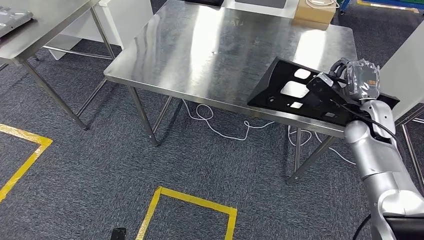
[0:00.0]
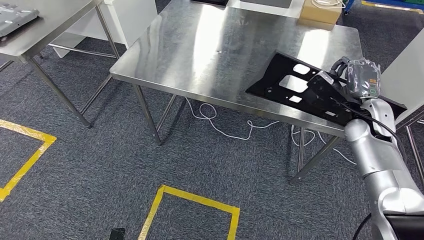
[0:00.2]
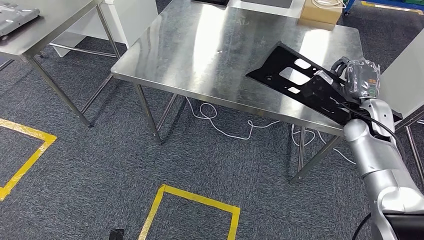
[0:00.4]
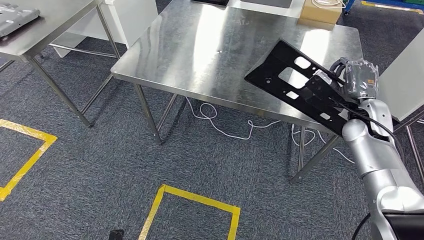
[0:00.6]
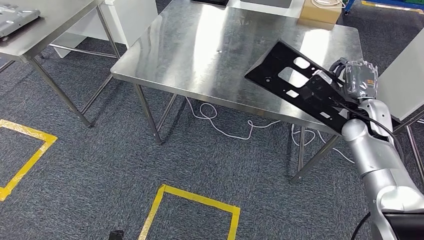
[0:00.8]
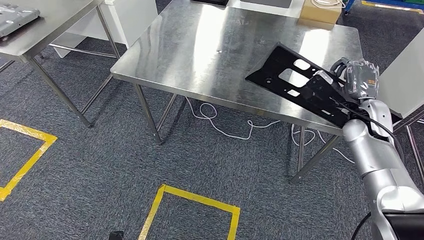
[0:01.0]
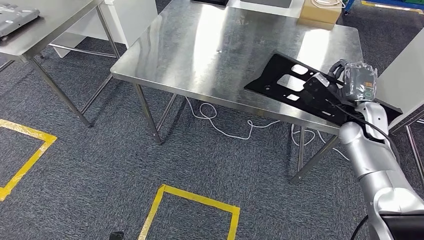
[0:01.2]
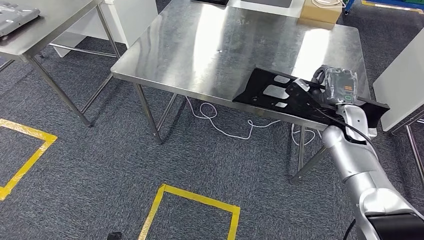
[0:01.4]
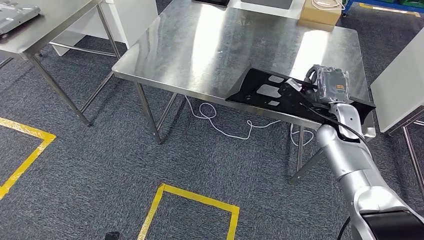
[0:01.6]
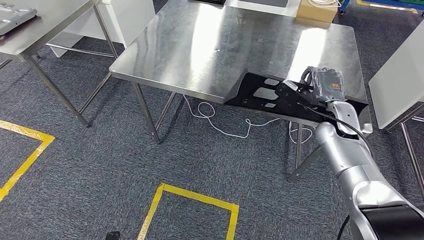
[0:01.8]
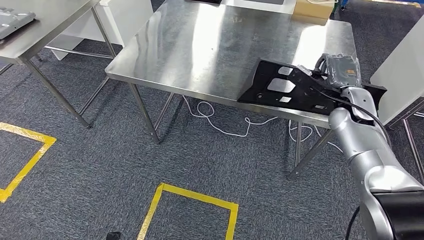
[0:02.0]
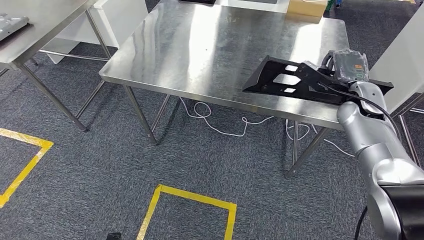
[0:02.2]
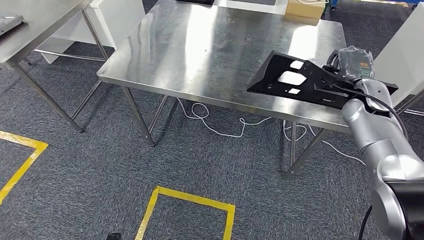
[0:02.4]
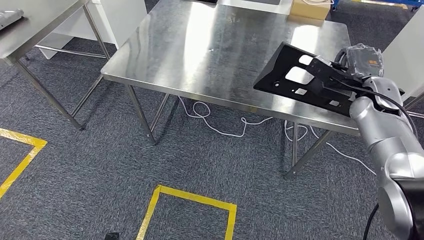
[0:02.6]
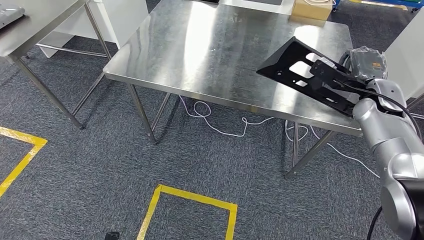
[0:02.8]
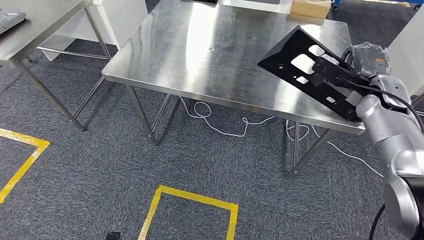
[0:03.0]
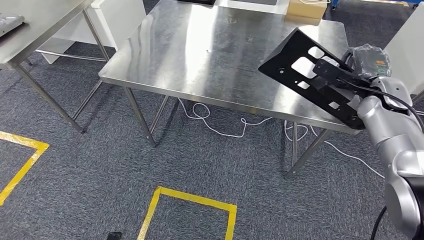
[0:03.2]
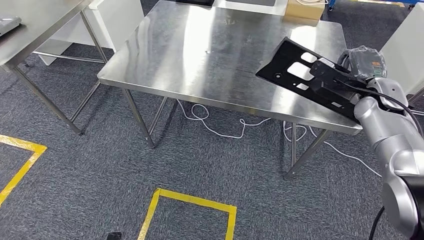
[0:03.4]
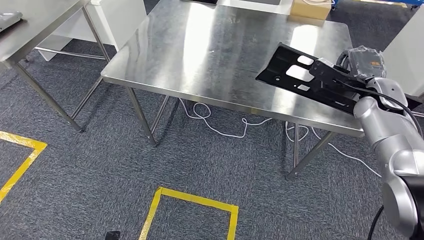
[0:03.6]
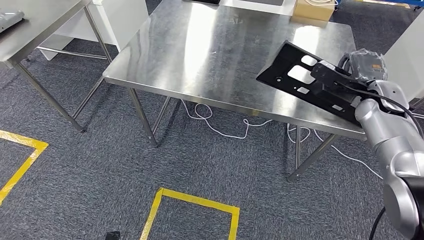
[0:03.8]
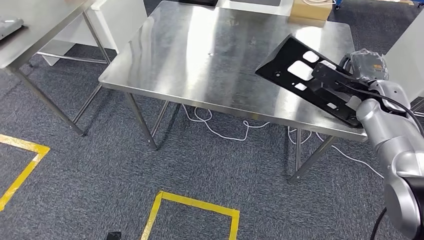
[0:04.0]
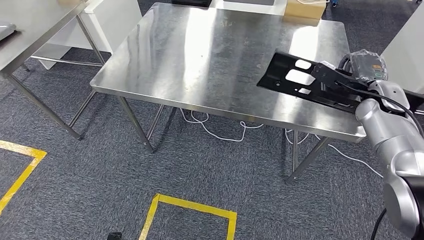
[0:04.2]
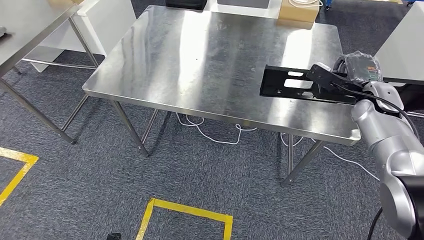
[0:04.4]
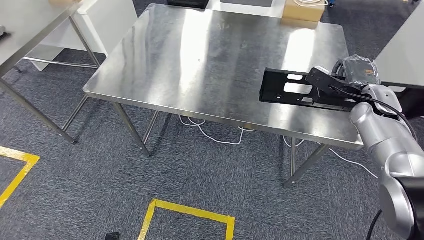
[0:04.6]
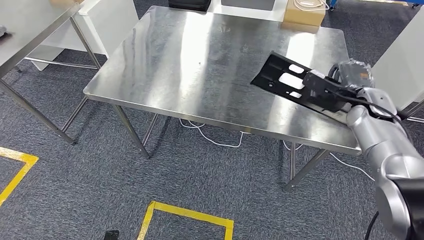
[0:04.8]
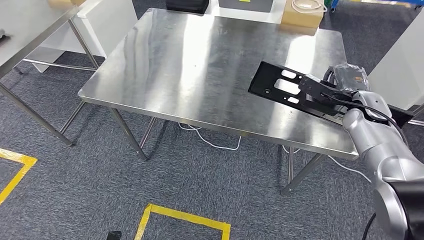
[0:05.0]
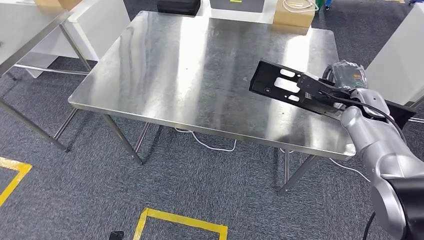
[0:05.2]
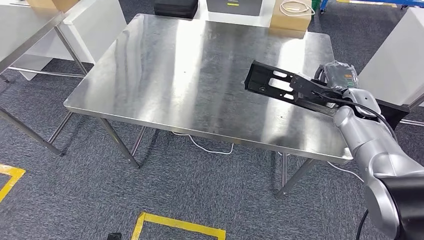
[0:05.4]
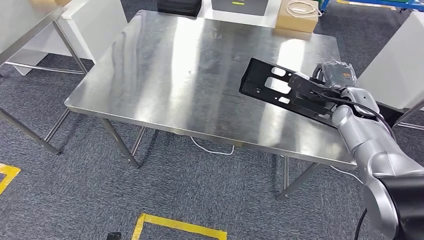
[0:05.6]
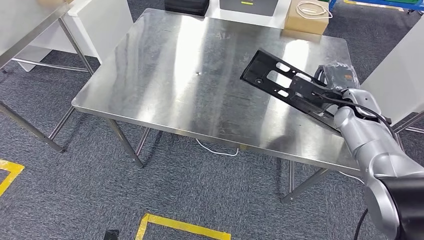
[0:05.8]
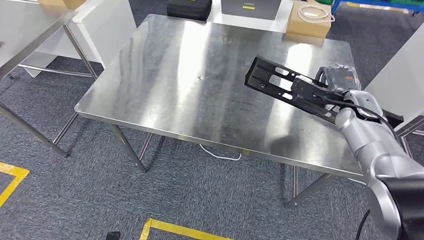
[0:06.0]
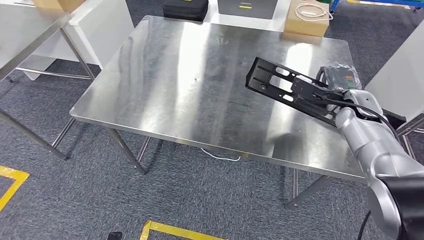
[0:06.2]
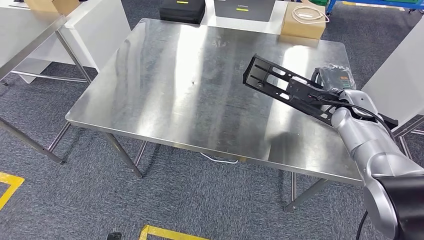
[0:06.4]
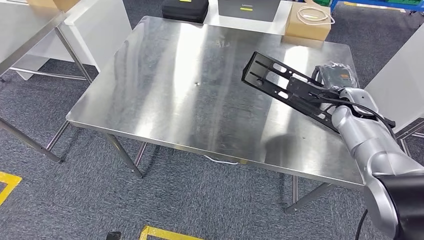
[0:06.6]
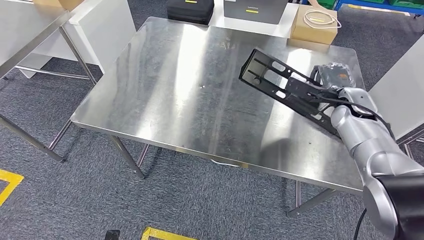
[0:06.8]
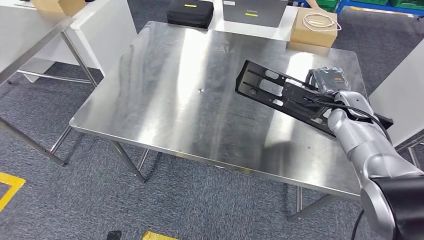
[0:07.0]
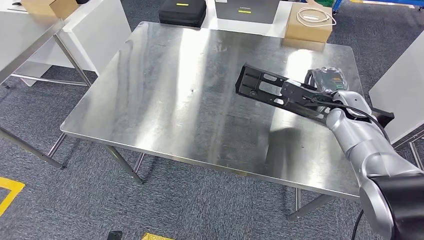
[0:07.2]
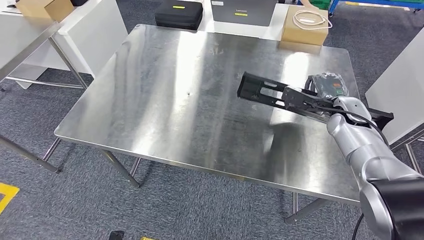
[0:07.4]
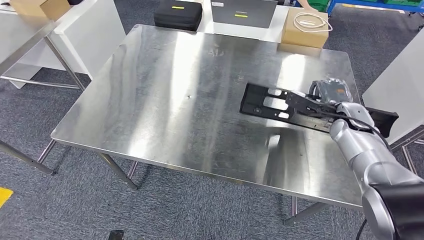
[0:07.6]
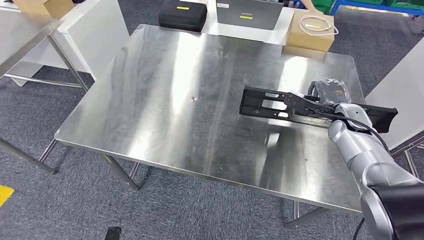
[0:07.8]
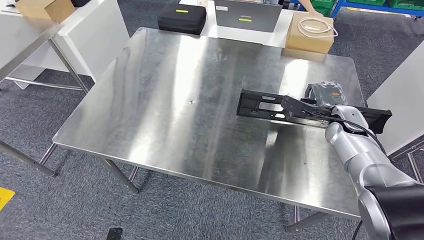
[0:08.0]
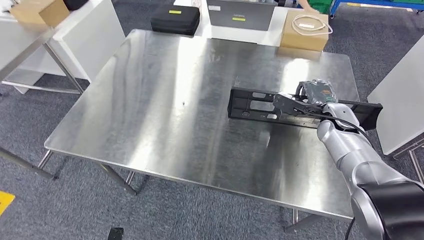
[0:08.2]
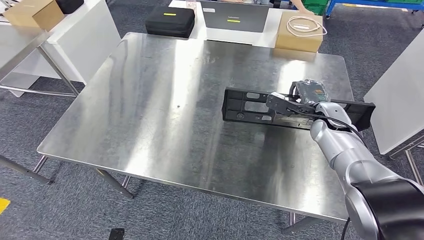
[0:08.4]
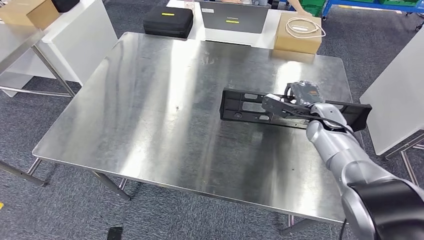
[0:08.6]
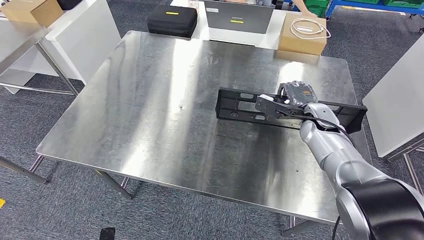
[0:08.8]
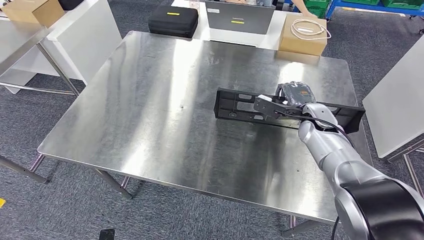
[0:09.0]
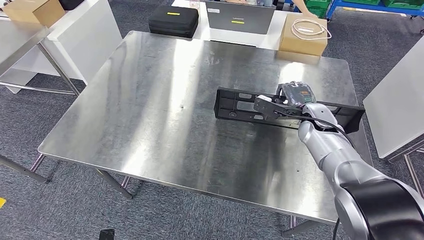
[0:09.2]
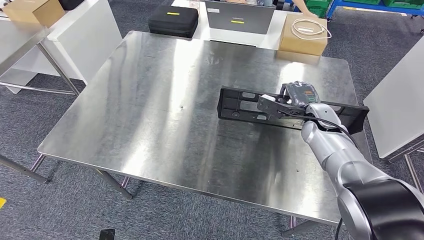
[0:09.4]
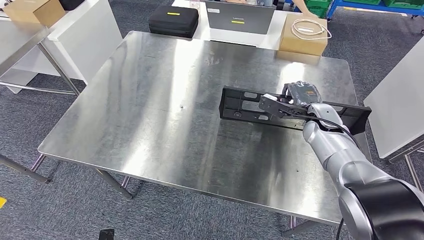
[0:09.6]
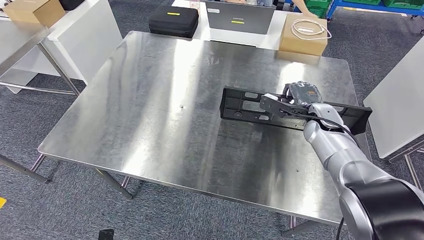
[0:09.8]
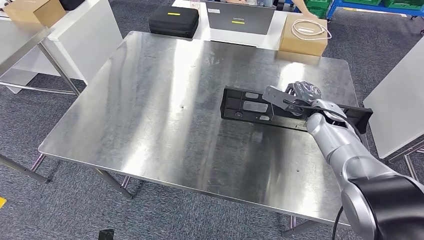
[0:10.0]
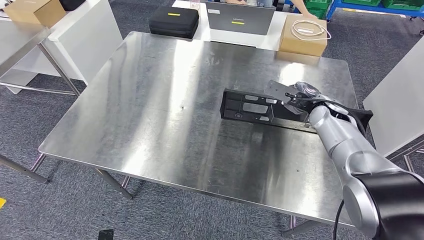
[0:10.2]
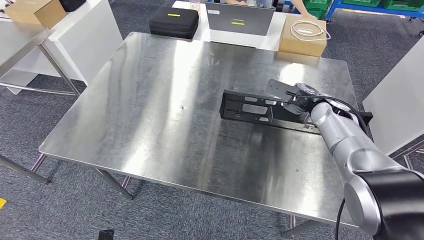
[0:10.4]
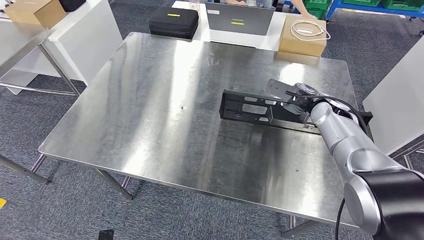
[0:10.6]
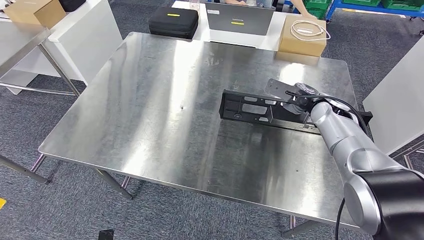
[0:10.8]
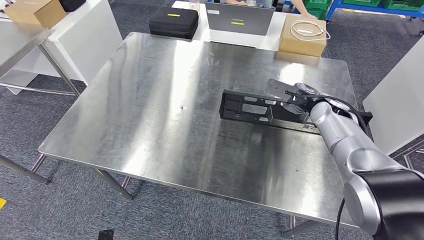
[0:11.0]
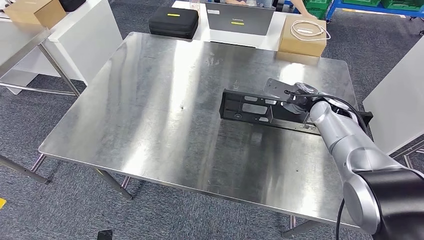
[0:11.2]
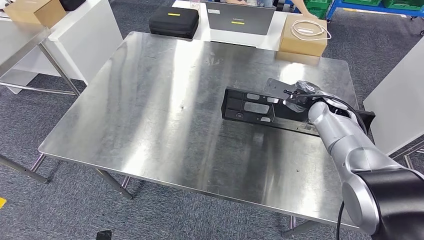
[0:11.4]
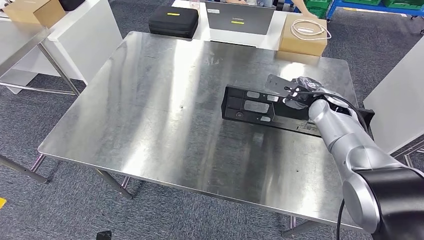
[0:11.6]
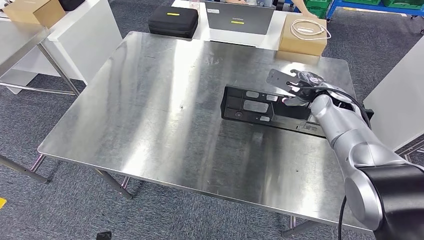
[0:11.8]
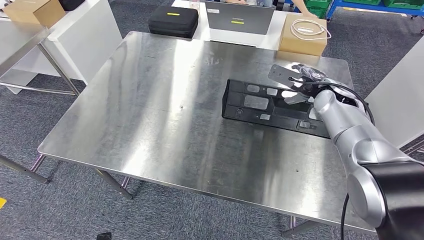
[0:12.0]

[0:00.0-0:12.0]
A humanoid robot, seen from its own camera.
0:10.4 to 0:12.0: The hands move only a little.

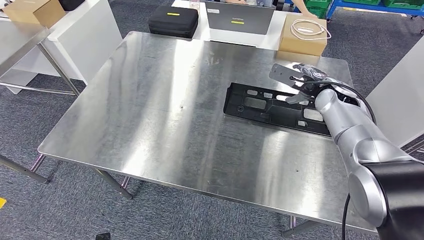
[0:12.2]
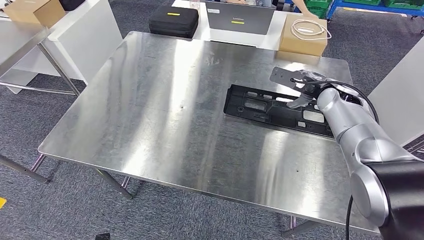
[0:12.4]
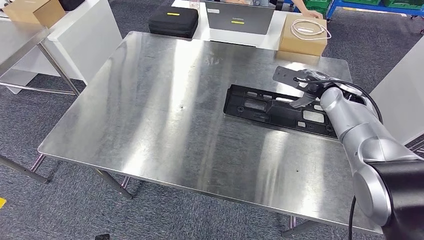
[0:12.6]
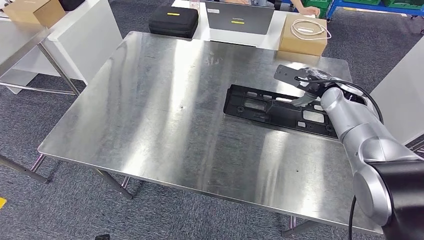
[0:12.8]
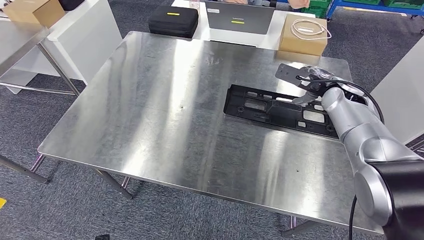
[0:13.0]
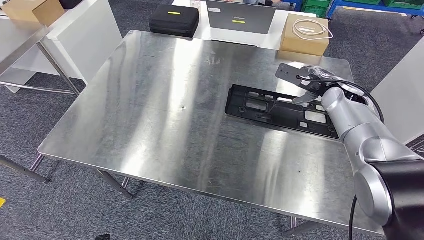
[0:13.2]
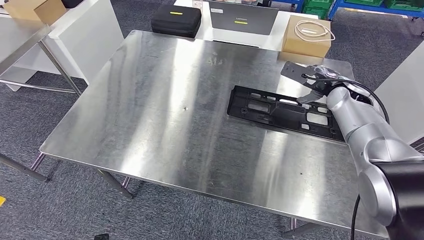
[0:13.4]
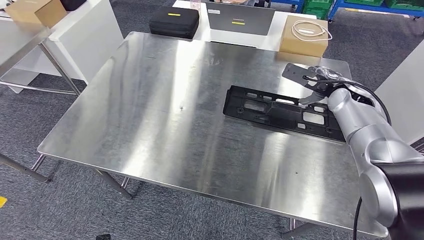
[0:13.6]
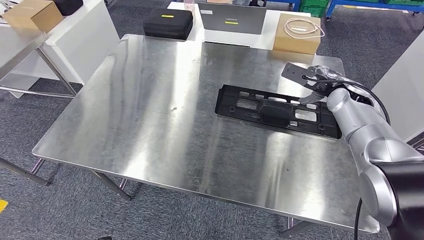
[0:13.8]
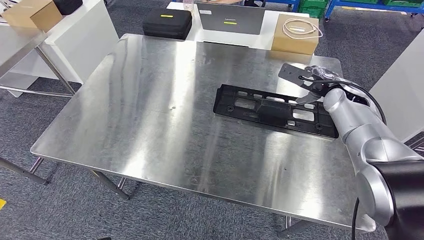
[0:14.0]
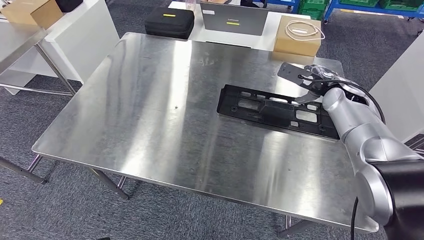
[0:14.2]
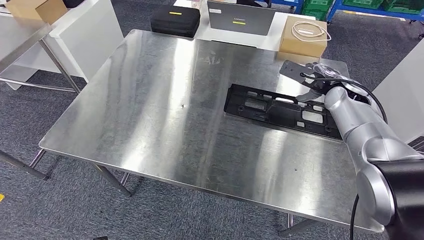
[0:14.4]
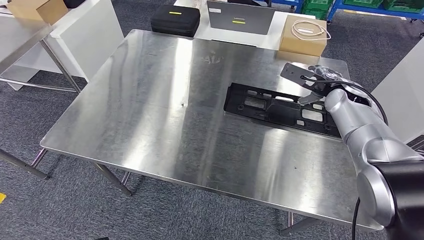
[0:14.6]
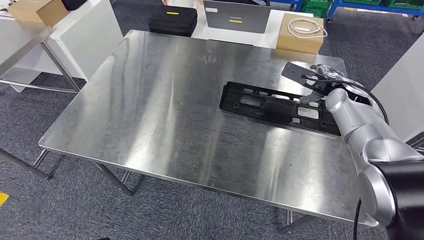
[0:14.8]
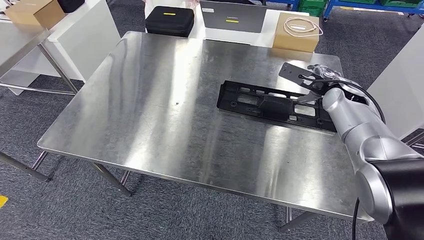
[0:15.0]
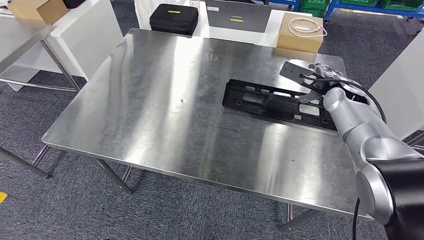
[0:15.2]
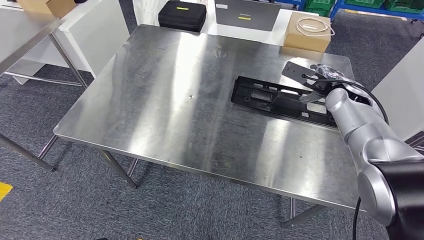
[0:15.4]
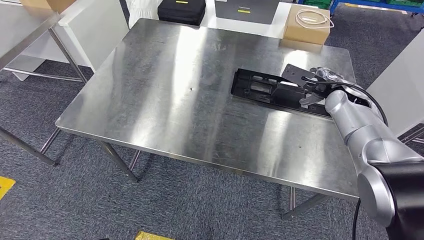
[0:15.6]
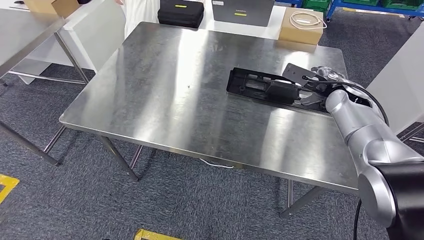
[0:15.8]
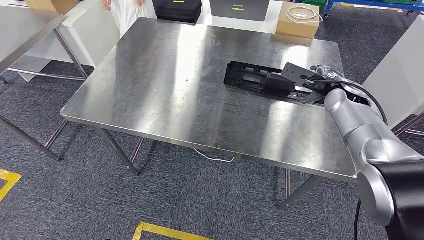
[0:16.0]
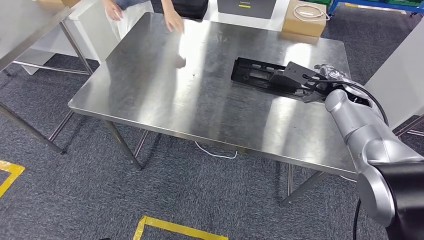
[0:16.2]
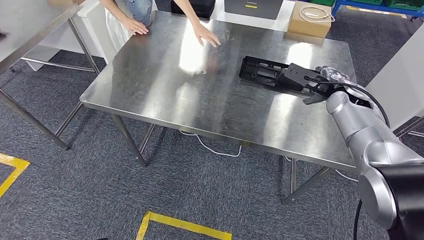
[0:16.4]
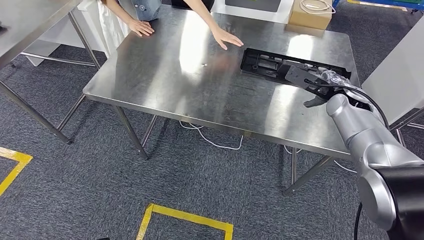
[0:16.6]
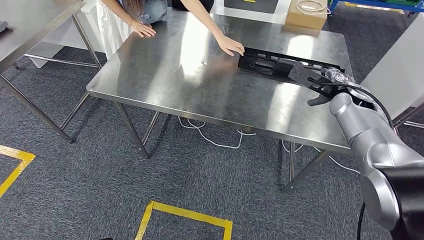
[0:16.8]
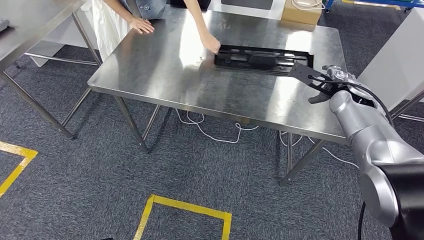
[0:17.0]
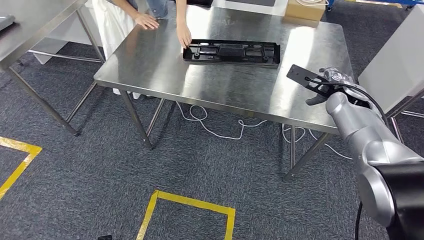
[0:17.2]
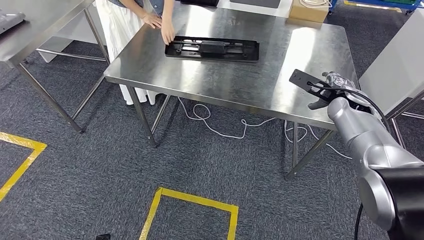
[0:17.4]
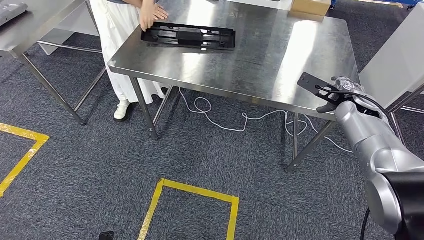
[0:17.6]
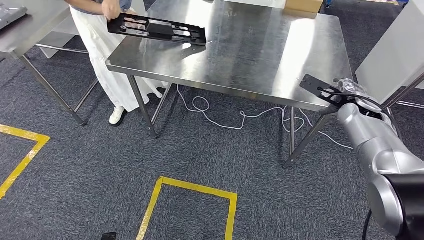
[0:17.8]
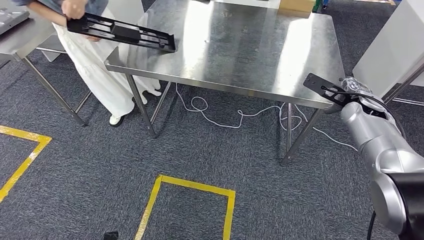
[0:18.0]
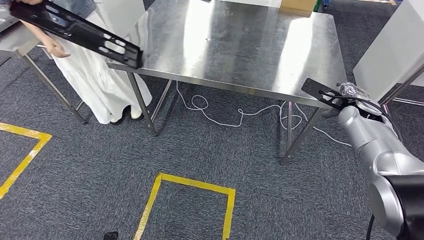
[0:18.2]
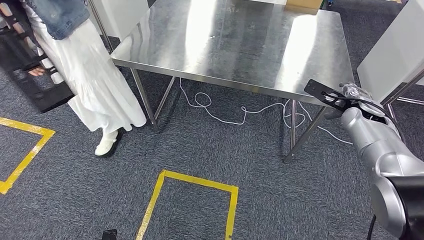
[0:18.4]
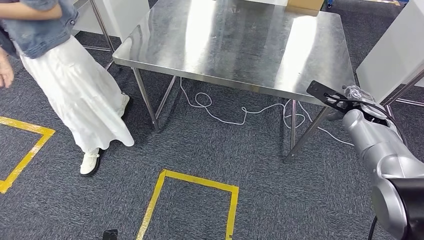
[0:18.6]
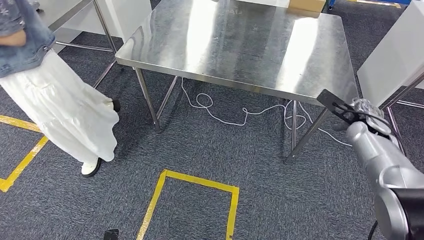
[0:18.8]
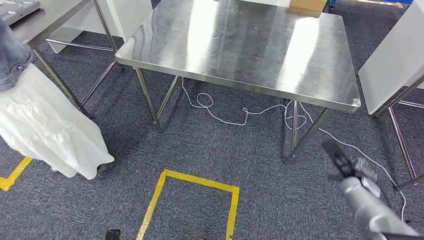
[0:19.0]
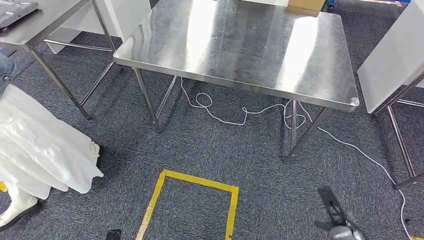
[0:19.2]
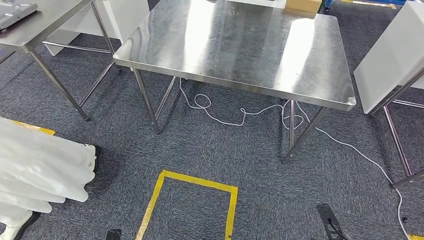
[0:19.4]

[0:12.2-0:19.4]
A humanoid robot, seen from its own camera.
0:12.2 to 0:13.6: The hands stay close to where they were, moving slightly.
